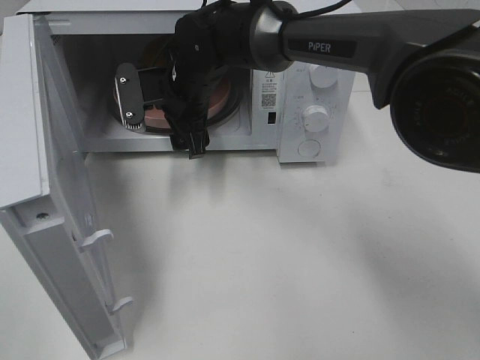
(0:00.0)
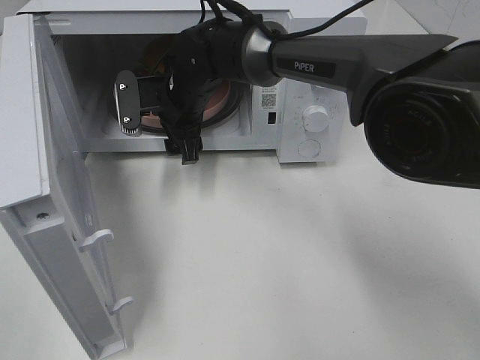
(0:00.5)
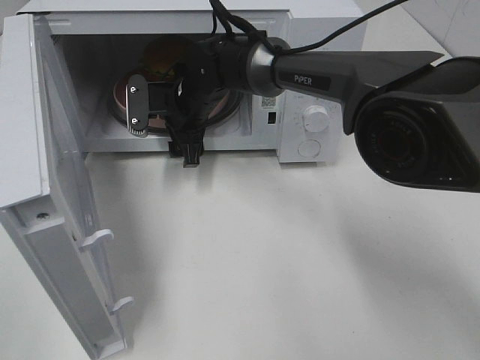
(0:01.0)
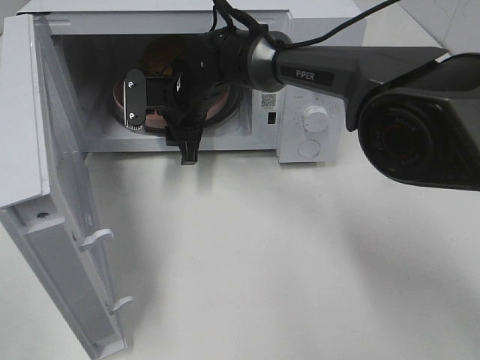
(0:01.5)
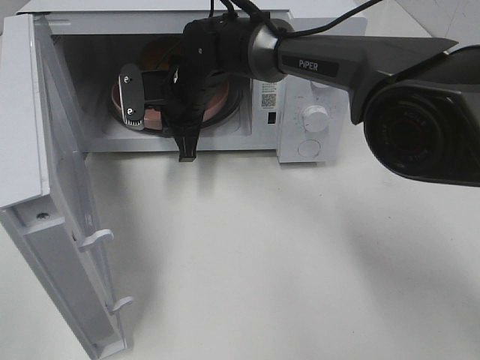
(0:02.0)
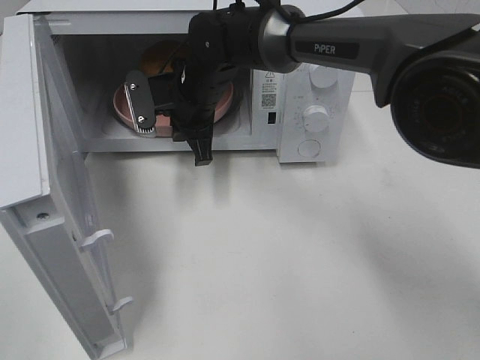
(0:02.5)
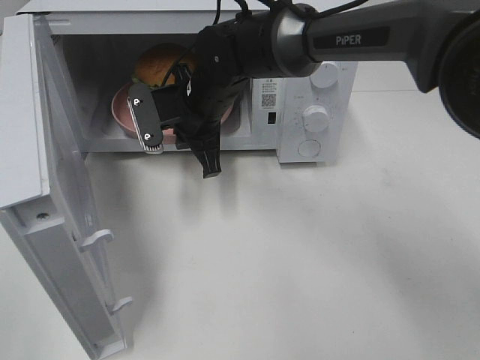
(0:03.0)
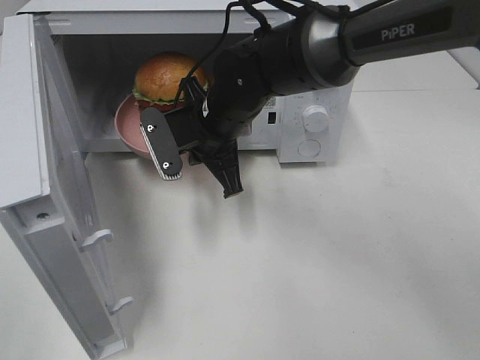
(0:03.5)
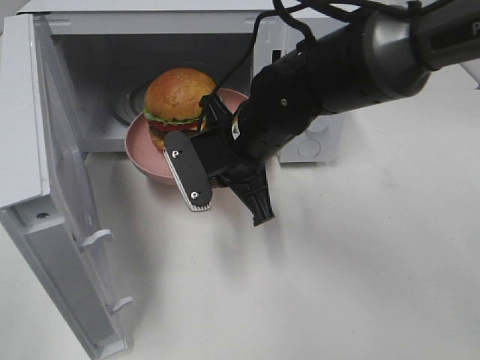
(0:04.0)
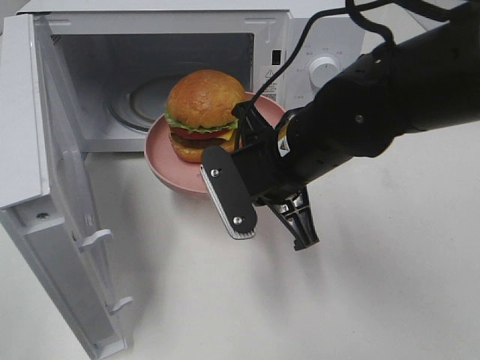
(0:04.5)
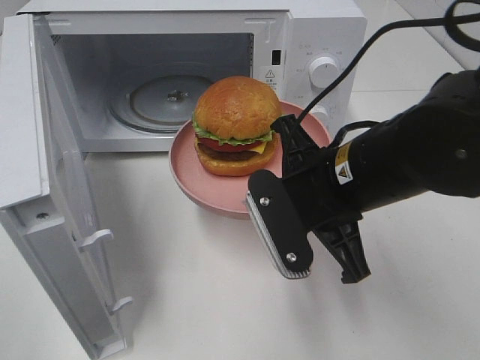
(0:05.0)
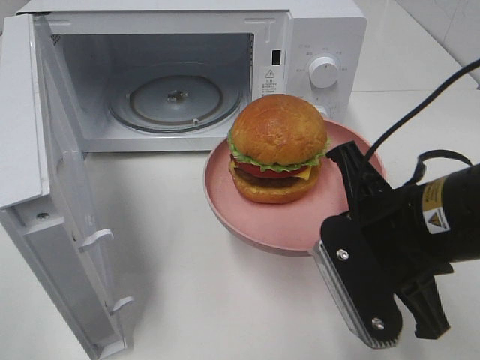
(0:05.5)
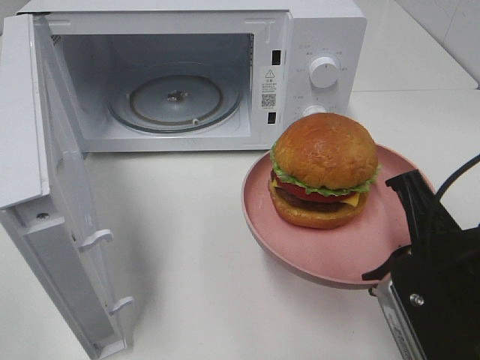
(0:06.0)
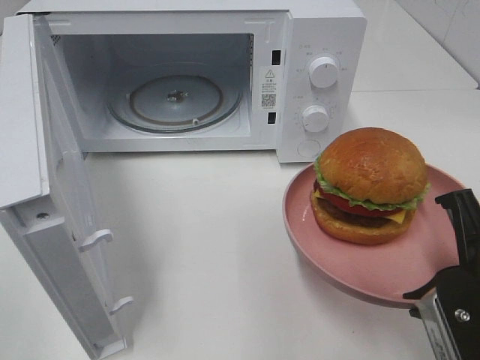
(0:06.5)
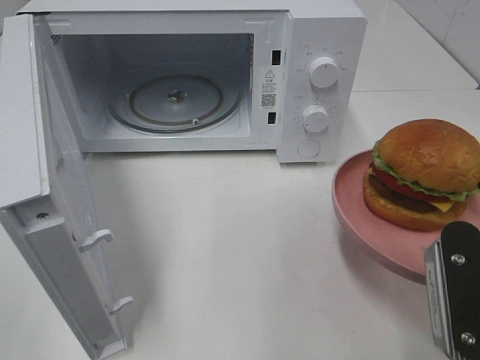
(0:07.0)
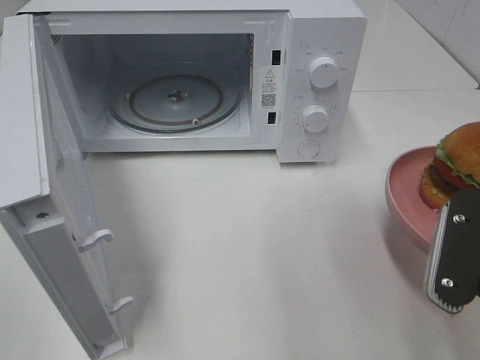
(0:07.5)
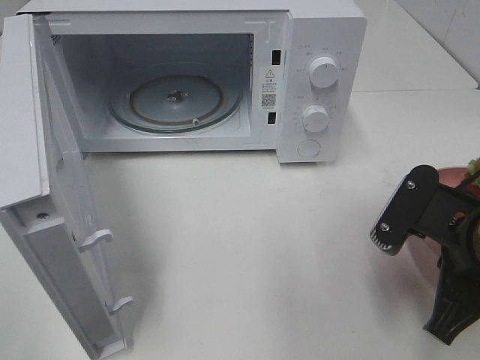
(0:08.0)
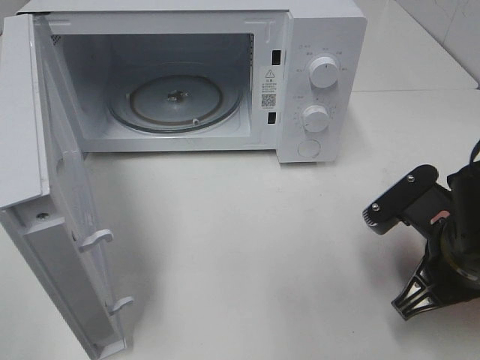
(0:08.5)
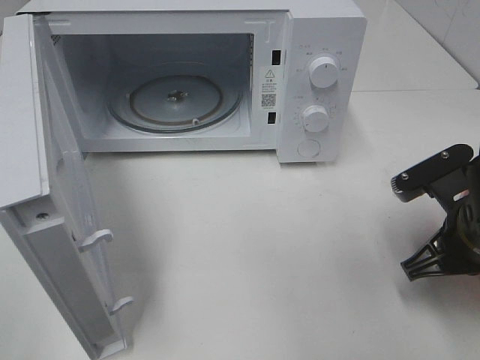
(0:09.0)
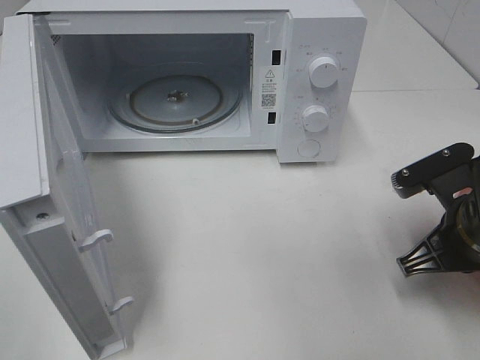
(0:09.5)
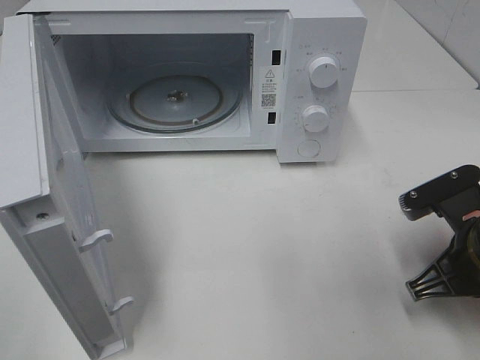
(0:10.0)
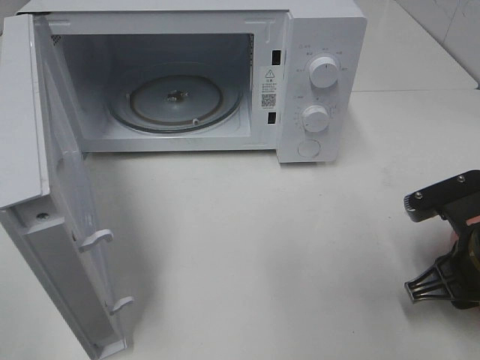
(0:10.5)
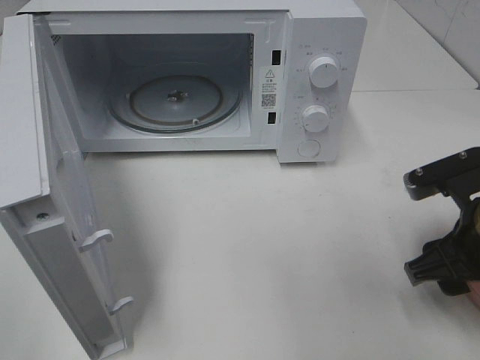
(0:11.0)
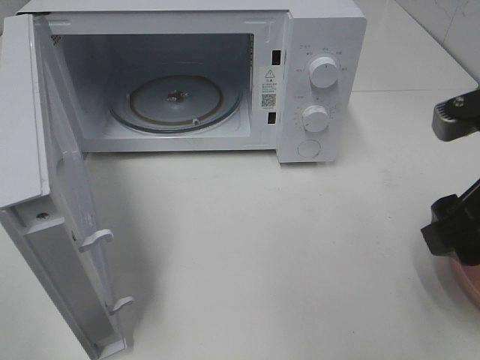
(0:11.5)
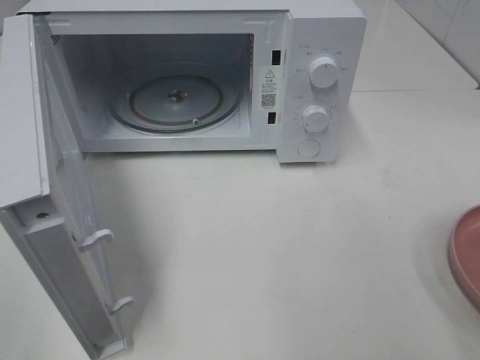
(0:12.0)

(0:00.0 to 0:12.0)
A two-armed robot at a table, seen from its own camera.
Task of the whole recording: Heat the burger.
Step, 0:02.0 - 0:10.0: Right hand: place the plate on the table.
0:00.0 - 0:02.0: The right gripper closes.
0:02.0 - 0:04.0: The right gripper goes approximately 15 cm backward and to the right.
0:04.0 - 0:06.0: The right gripper goes about 25 cm backward and to the right.
0:06.0 - 0:08.0: The right gripper moves roughly 5 cm.
0:08.0 - 0:10.0: The right gripper ends up approximately 5 cm from where it was.
0:10.0 - 0:12.0: The right gripper moves upward and backward, about 20 cm, and opens up.

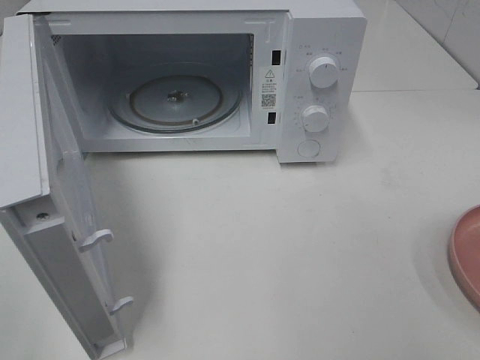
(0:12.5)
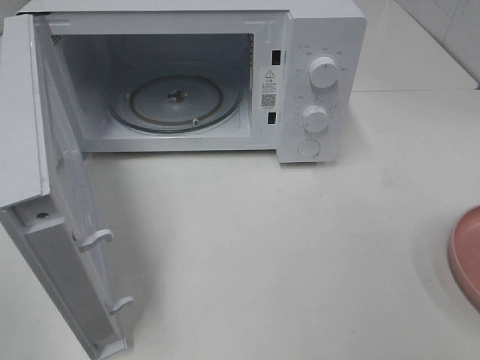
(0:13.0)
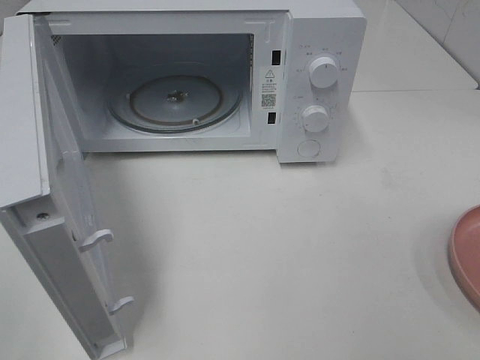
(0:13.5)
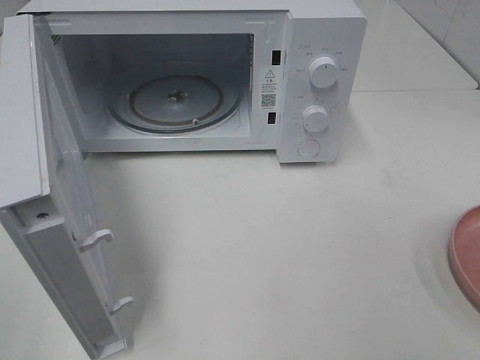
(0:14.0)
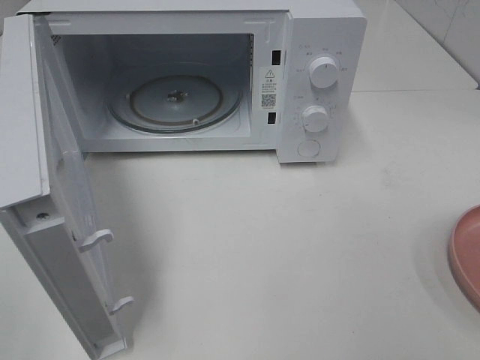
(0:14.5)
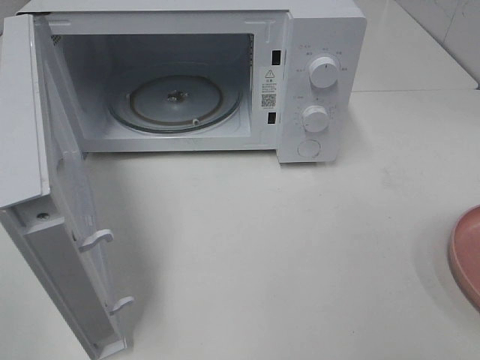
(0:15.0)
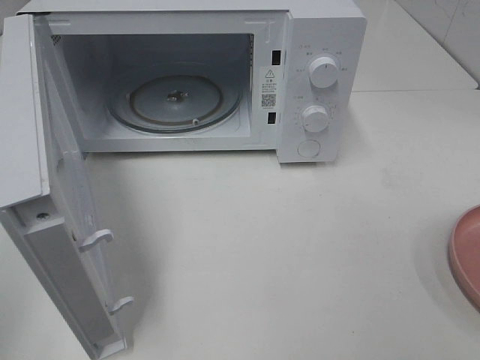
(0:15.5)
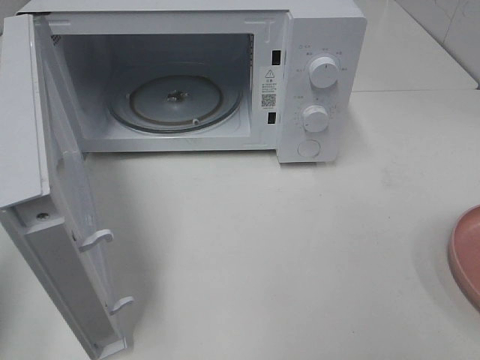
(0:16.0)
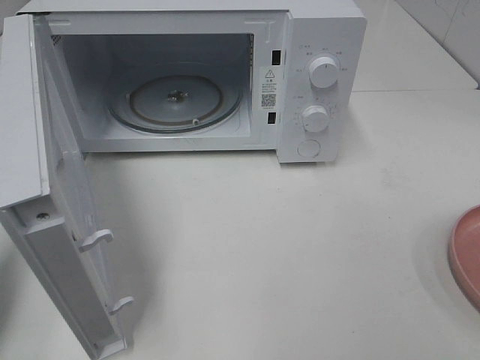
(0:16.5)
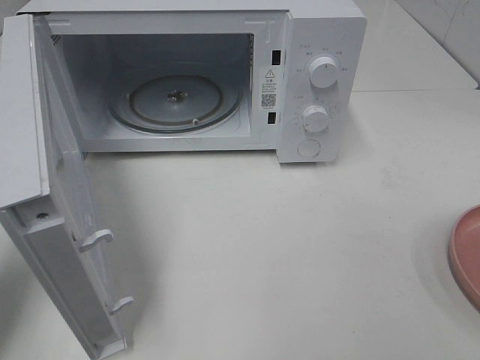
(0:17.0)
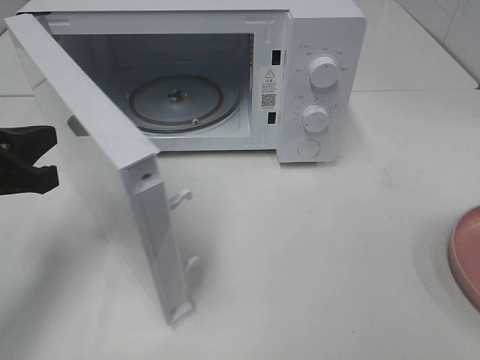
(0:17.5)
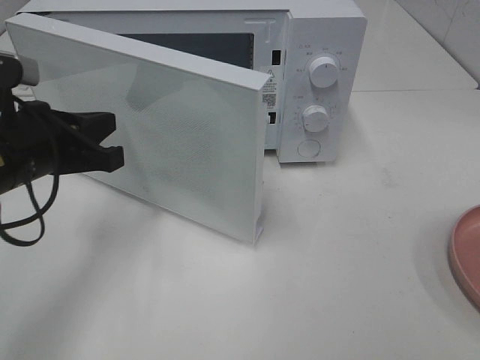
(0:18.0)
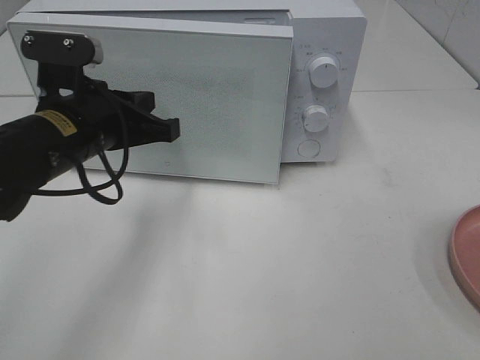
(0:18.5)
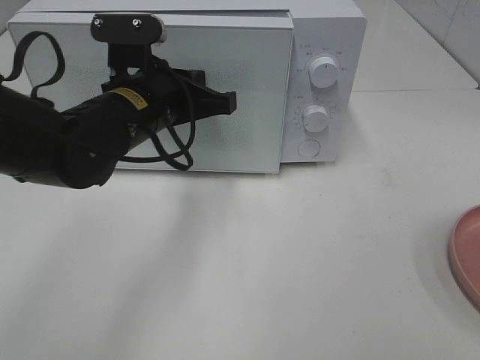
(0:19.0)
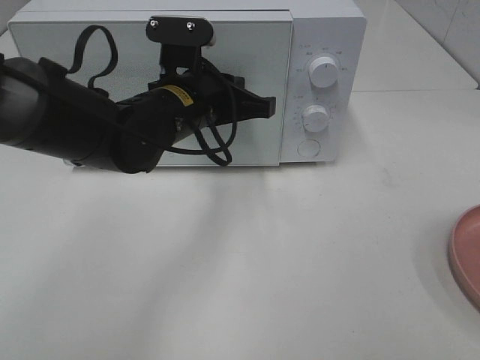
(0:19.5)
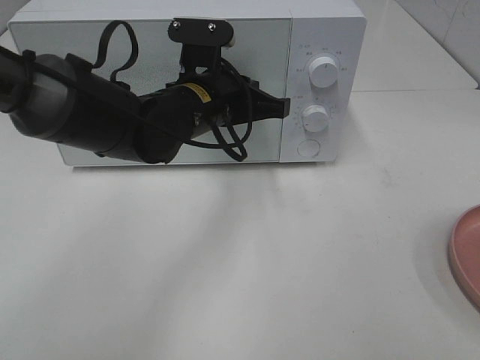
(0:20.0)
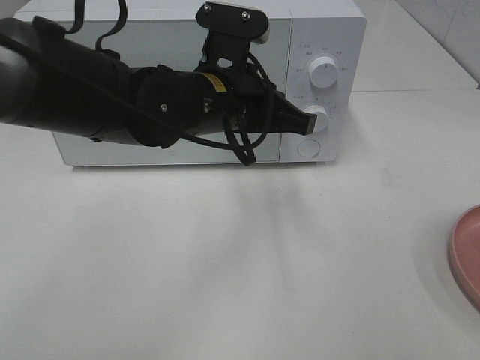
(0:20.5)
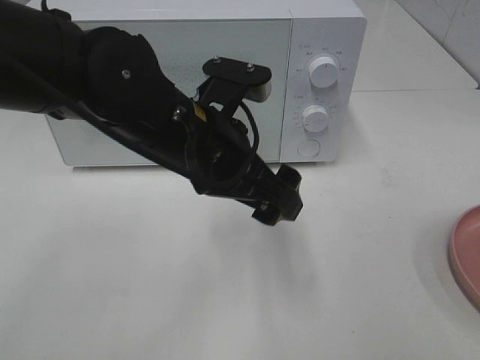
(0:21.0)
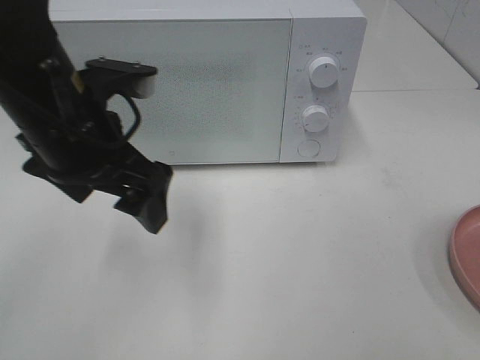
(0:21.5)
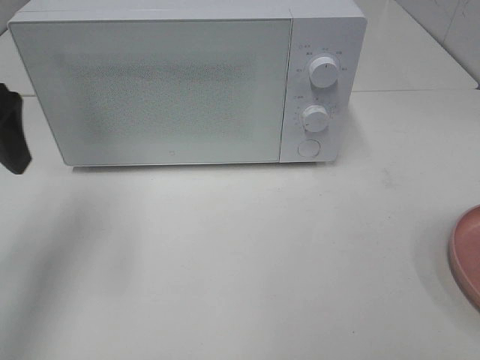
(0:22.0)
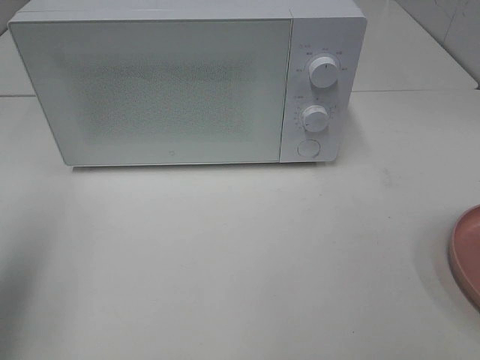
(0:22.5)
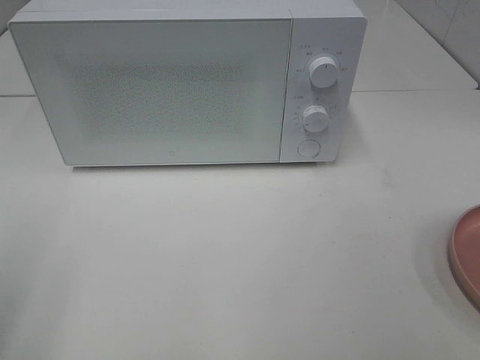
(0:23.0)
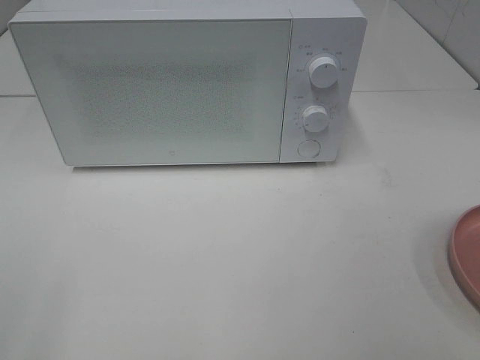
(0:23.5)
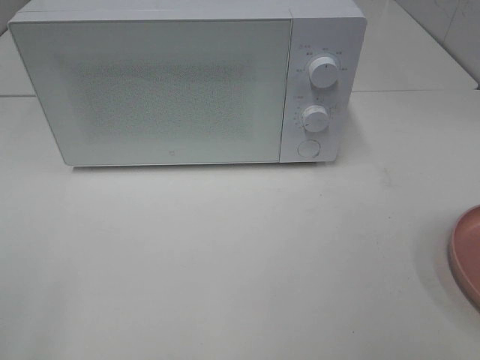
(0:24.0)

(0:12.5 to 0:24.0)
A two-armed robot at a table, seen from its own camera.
Task of the whole recording: Heat the burger.
Step, 0:12.5 - 0:20.0: Left hand: close the microwave door.
0:14.5 - 0:16.5: The left gripper goes some 15 cm forward, and closes up.
0:16.5 - 0:18.5: The left gripper is displaced to the right and forward by roughly 20 cm.
0:18.5 - 0:20.0: The left gripper moves to the right and forward, approximately 15 cm.
0:20.0 - 0:22.0: The left gripper travels to the left and upward by about 25 cm, and opens up.
0:22.0 - 0:24.0: The left gripper is displaced backward by roughly 25 cm.

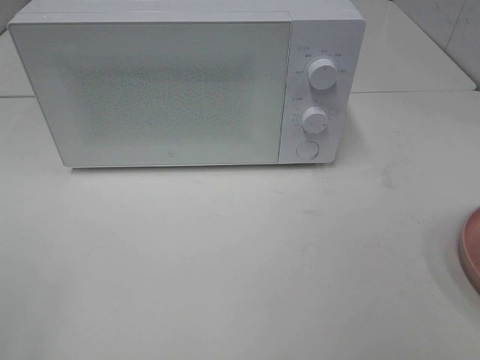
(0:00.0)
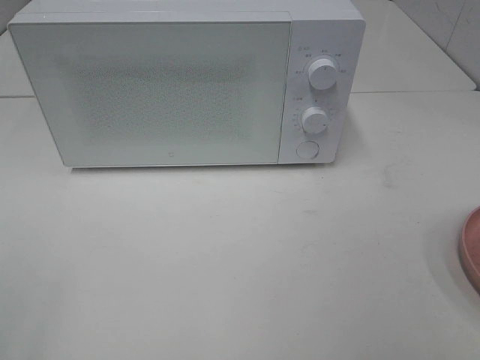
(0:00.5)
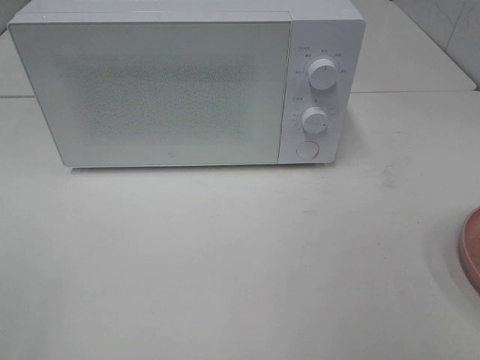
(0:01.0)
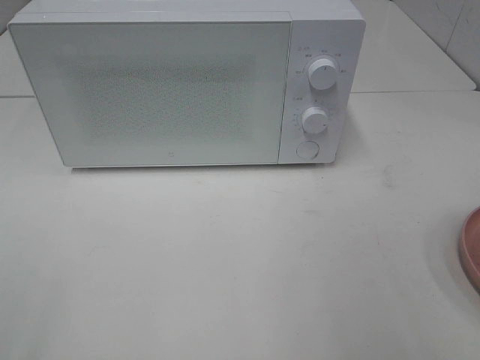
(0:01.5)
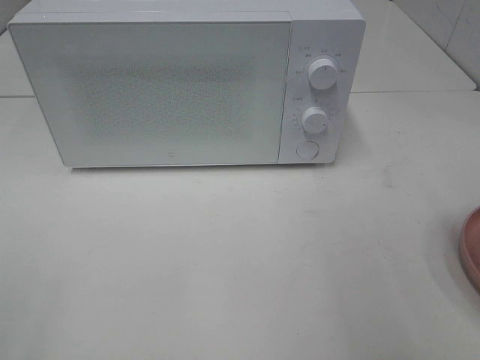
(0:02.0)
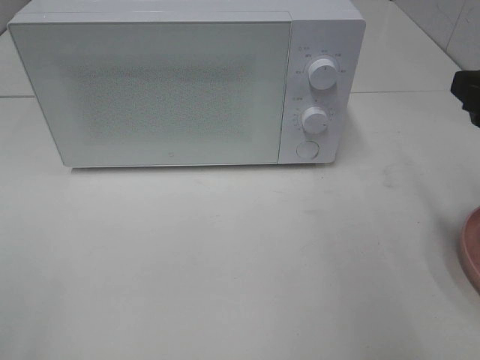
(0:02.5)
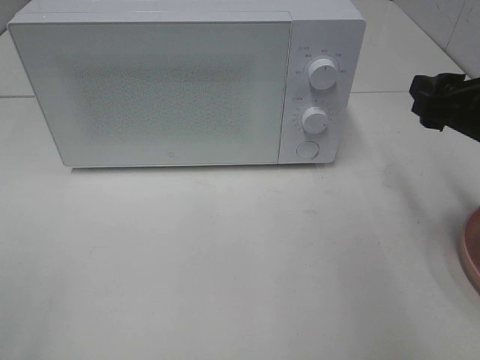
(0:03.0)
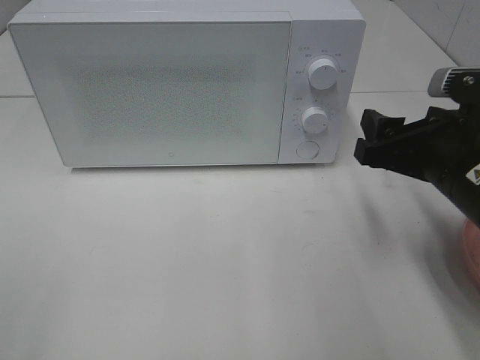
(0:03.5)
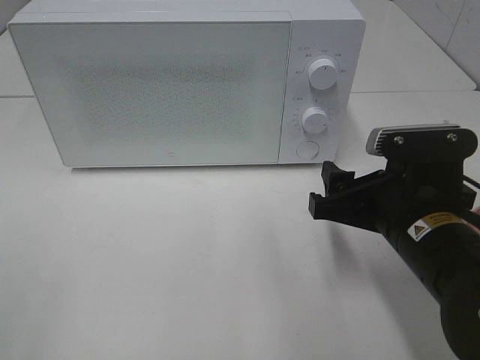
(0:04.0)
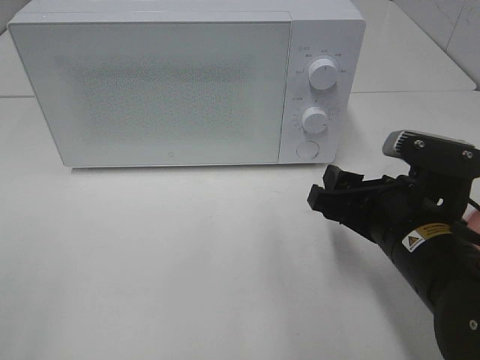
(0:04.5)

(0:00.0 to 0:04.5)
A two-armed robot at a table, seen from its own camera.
Task of the whole recording: Heat the burger.
0:02.0 - 0:04.5: The right gripper is displaced downward and to the left by approximately 20 cm.
